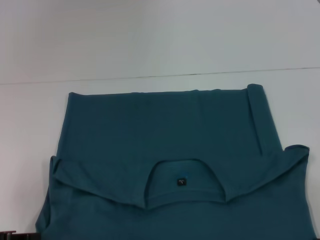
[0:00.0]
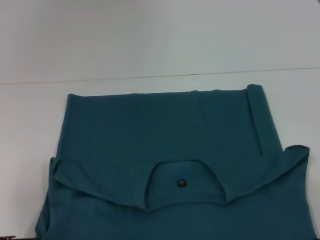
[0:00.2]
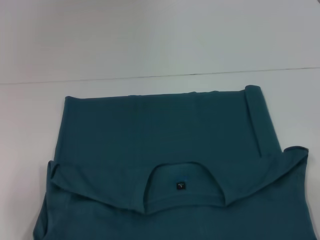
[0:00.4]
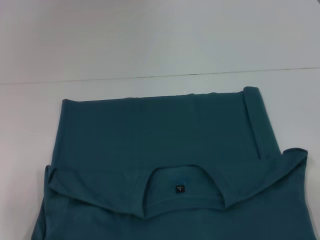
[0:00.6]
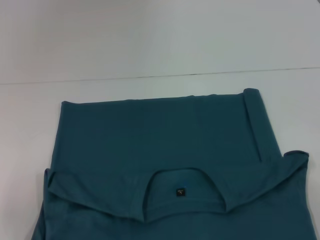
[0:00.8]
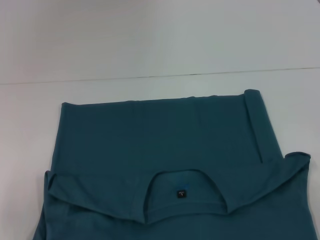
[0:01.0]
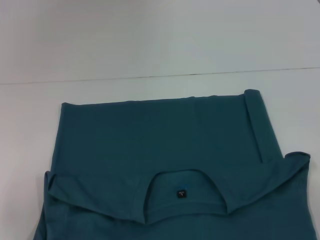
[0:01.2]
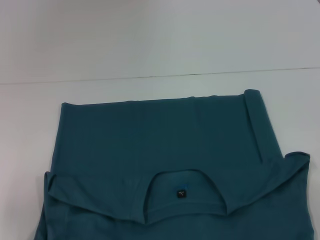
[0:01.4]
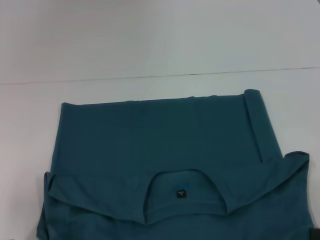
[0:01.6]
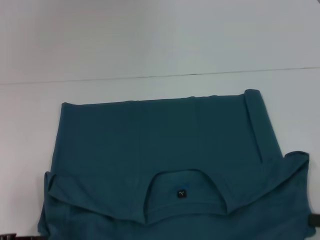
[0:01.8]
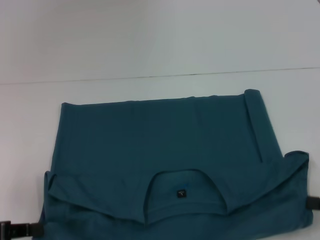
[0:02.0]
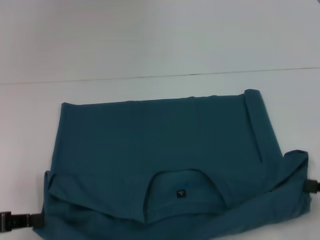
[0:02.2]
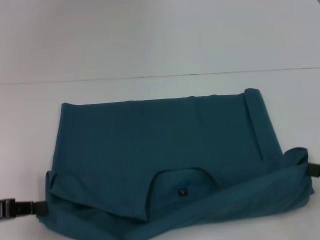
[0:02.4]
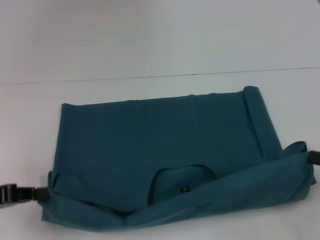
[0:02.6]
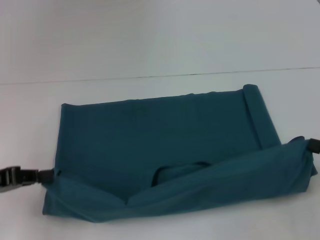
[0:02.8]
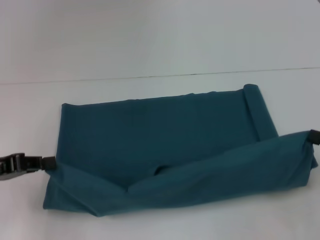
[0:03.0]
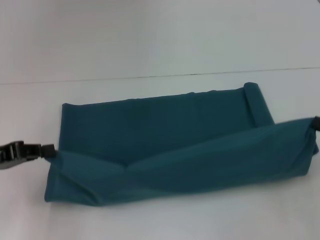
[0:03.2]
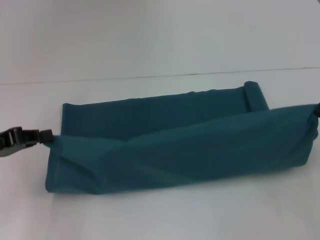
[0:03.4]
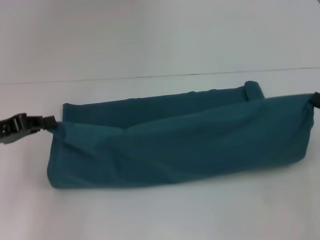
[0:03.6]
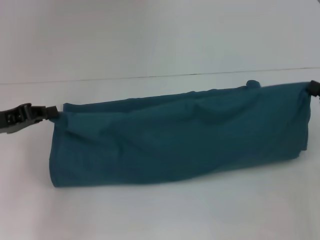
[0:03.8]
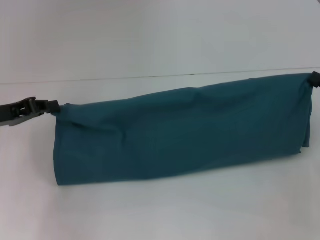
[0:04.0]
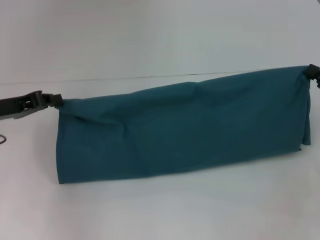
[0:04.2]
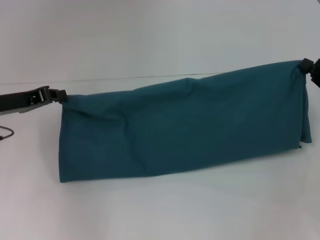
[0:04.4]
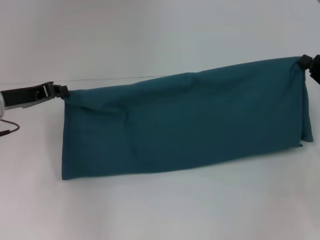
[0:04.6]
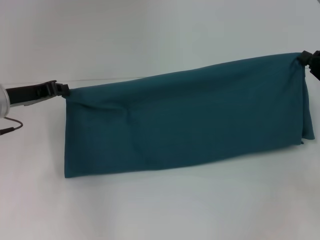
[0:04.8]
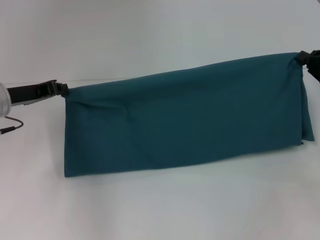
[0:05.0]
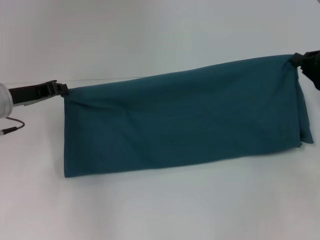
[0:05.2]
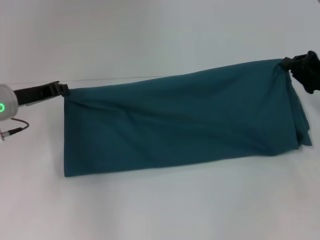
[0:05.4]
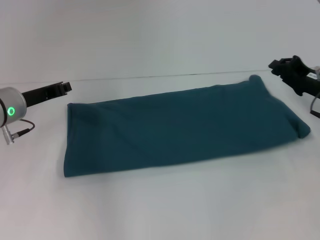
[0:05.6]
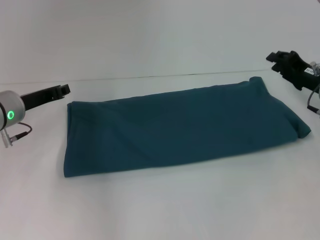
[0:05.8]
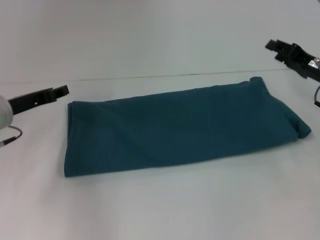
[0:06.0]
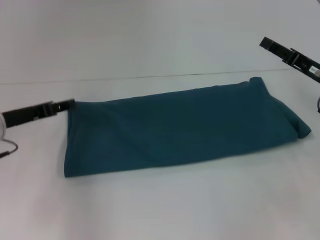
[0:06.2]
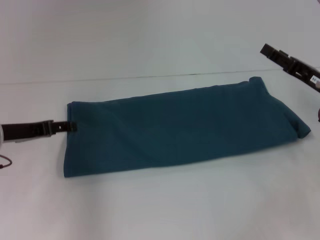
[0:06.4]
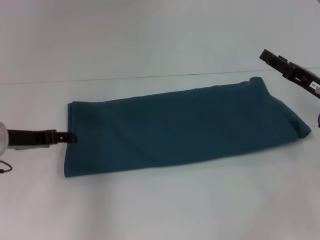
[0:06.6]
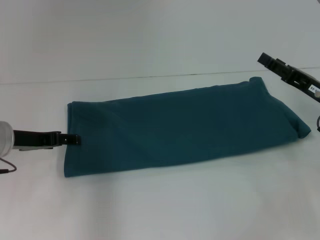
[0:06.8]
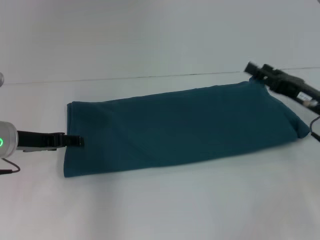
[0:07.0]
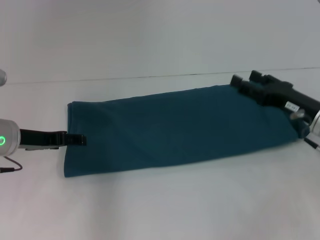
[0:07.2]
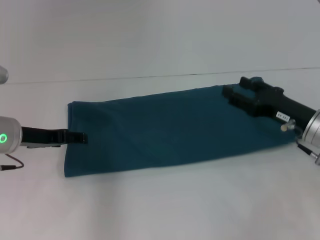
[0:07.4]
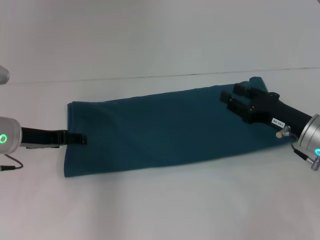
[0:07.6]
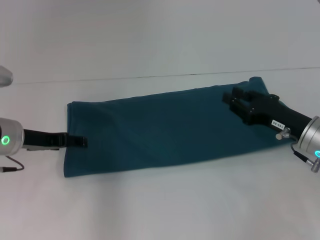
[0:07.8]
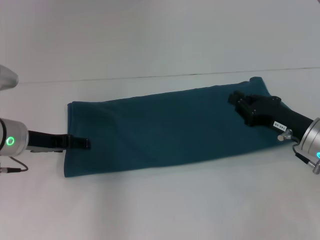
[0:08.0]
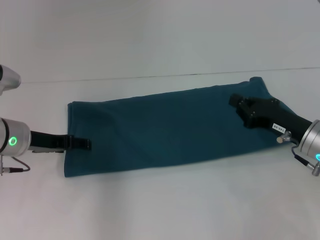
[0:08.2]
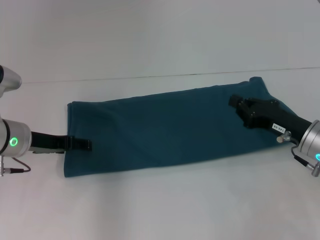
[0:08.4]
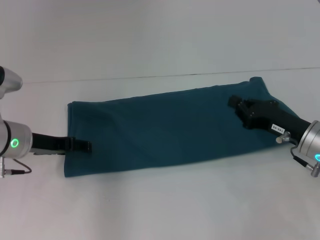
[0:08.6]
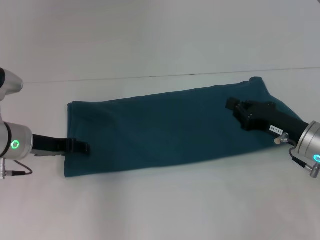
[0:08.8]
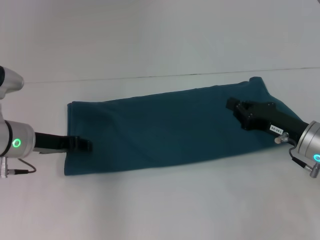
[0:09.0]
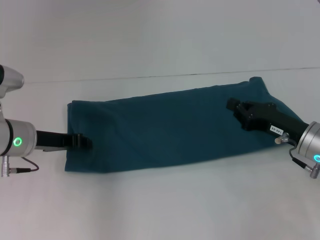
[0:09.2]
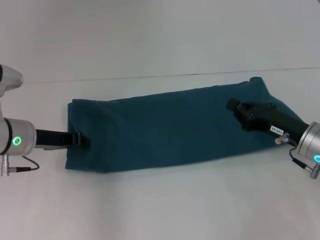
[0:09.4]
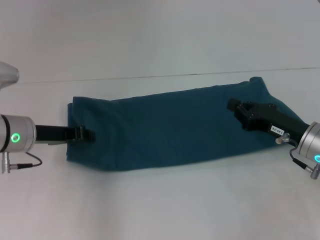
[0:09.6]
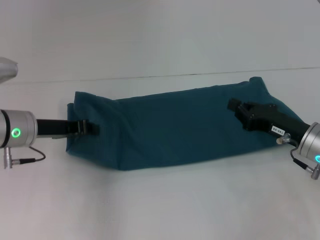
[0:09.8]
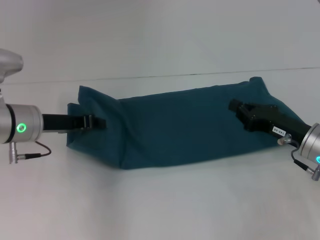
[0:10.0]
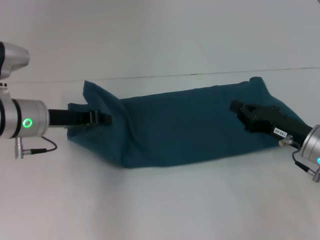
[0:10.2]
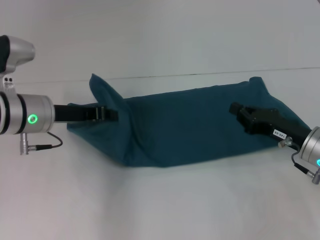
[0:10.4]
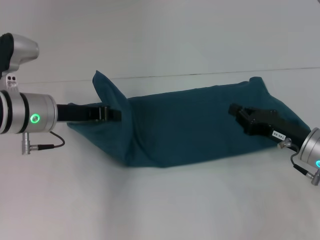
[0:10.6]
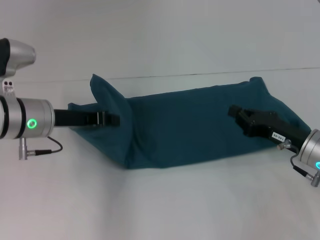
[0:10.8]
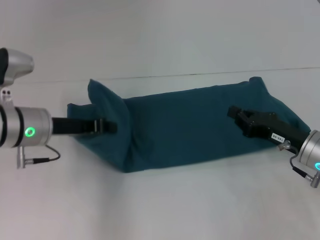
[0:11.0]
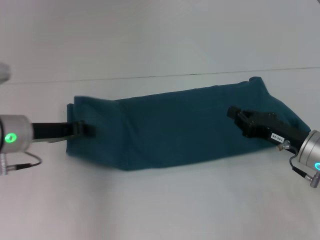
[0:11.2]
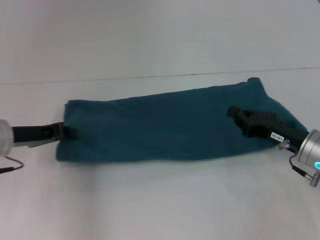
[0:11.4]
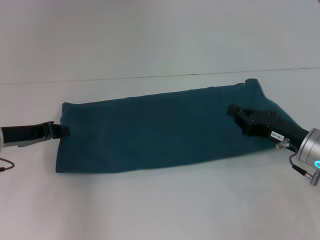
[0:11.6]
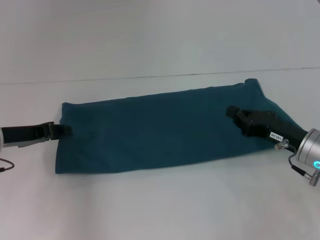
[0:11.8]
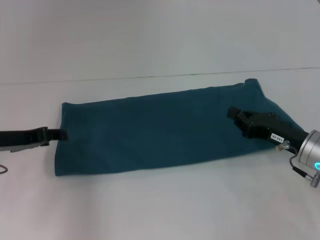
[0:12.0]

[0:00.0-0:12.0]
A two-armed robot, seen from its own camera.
Step, 0:01.6 to 0:06.0: Fold the clothes to the left.
Step, 0:01.6 to 0:06.0: Fold the clothes to the right.
0:00.0 to 0:01.6: There are only small adjustments of the grippers.
0:01.6 to 0:03.0: The grippers both shift forward by roughly 10 cm.
0:03.0 to 0:04.4: The grippers both shift forward by approximately 10 cm.
0:04.4 to 0:06.0: The right gripper is displaced forward and to the left by roughly 10 cm.
0:06.0 to 0:07.6: The left gripper opens up, while the right gripper heads backward and to the left, covering approximately 10 cm, and opens up.
0:07.6 to 0:09.0: The right gripper closes.
0:09.0 to 0:10.4: The left gripper closes its fingers.
0:10.4 to 0:12.0: The left gripper travels to the left by some 10 cm.

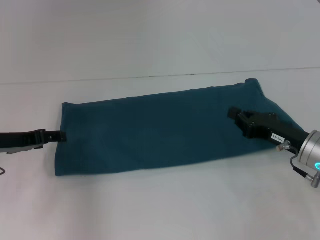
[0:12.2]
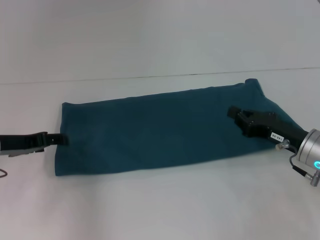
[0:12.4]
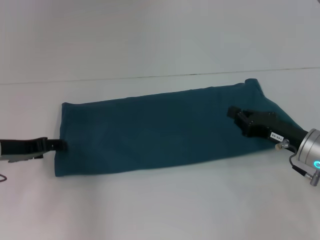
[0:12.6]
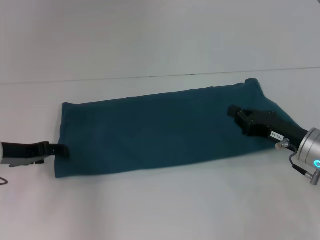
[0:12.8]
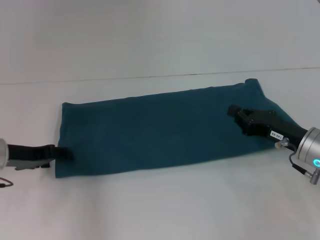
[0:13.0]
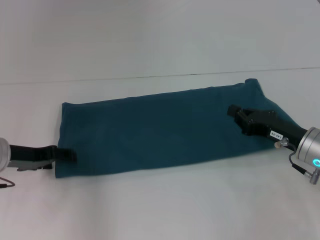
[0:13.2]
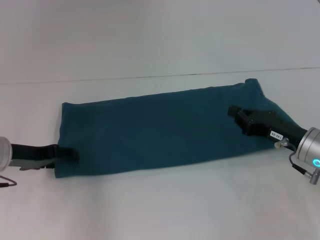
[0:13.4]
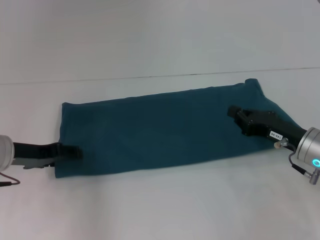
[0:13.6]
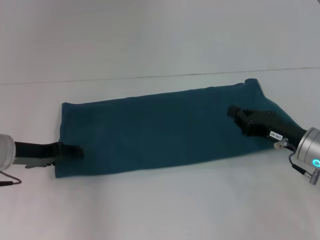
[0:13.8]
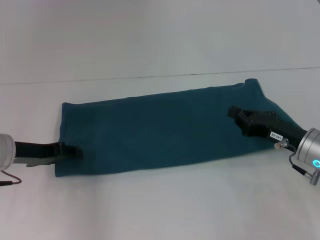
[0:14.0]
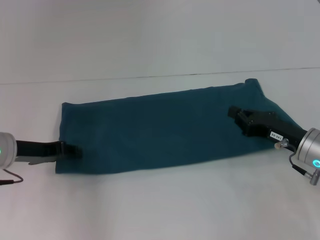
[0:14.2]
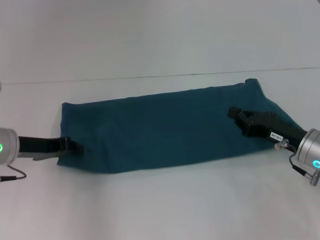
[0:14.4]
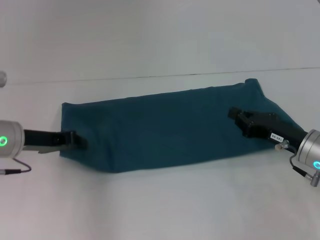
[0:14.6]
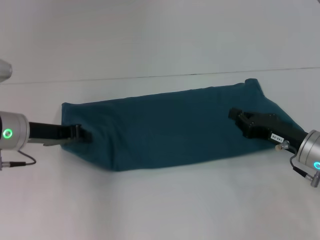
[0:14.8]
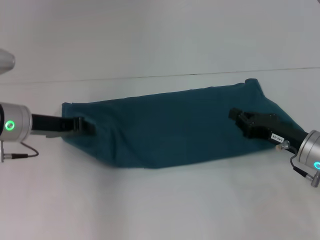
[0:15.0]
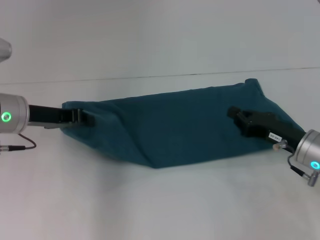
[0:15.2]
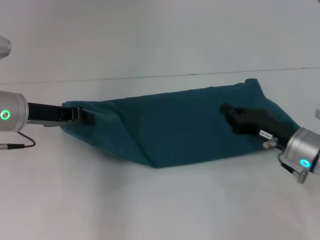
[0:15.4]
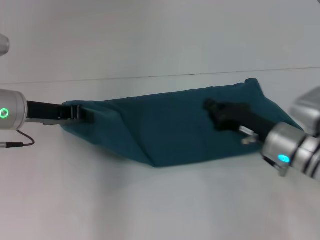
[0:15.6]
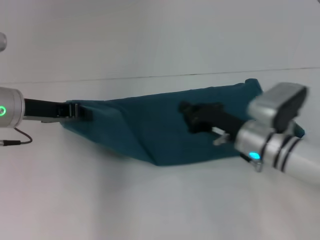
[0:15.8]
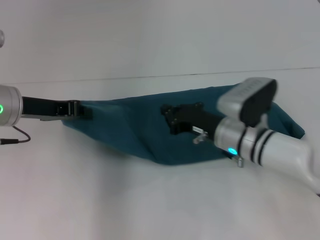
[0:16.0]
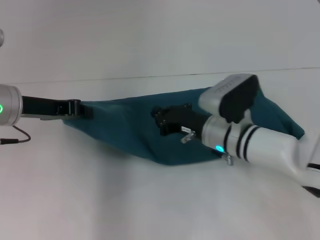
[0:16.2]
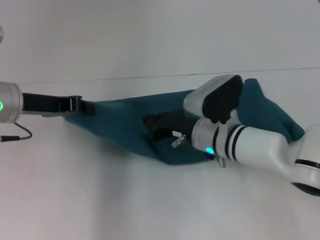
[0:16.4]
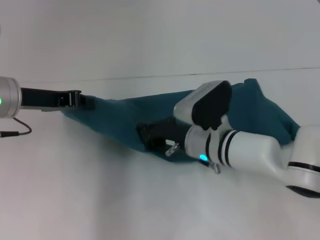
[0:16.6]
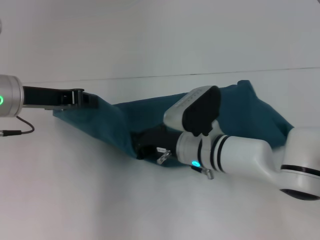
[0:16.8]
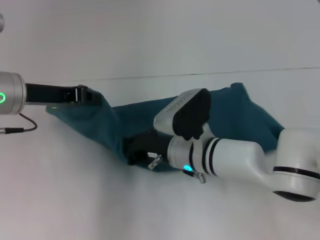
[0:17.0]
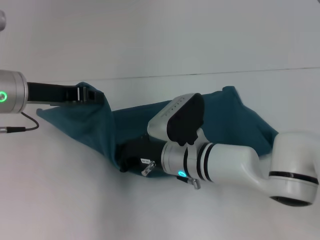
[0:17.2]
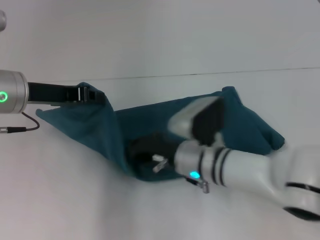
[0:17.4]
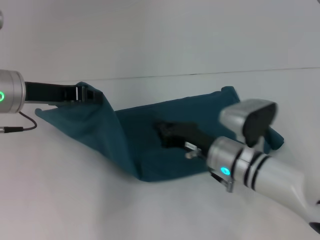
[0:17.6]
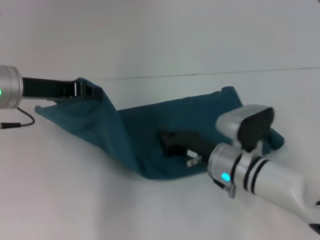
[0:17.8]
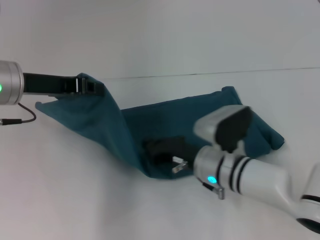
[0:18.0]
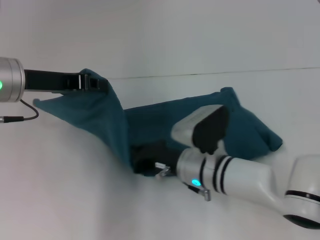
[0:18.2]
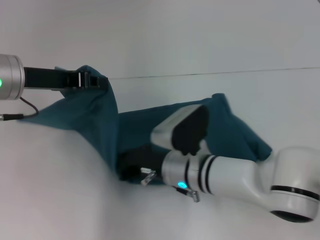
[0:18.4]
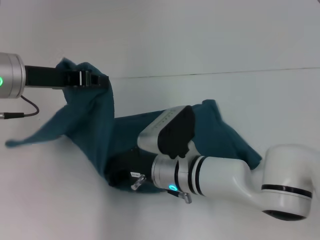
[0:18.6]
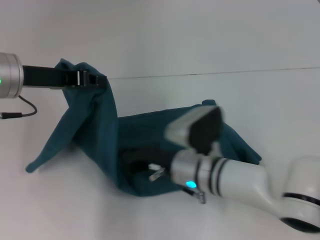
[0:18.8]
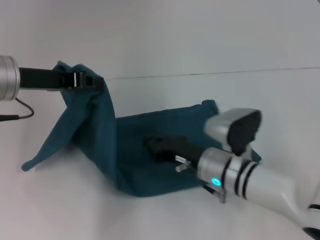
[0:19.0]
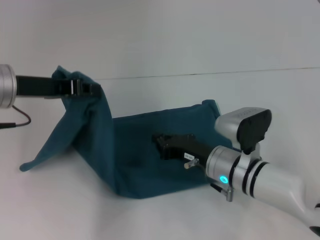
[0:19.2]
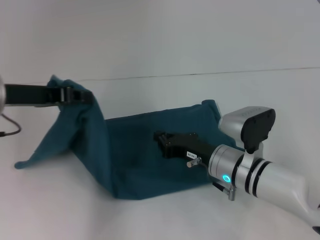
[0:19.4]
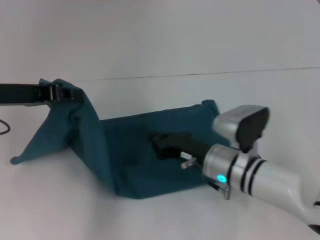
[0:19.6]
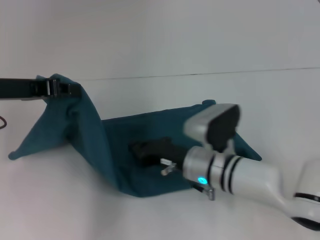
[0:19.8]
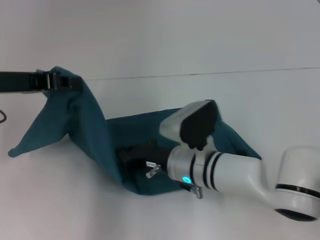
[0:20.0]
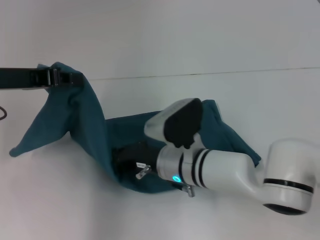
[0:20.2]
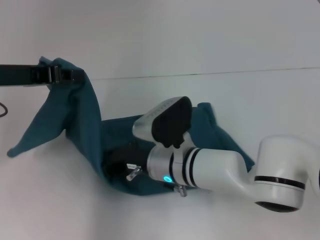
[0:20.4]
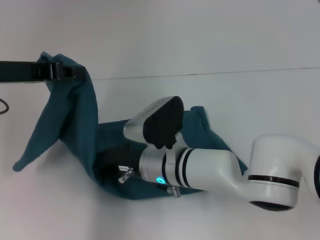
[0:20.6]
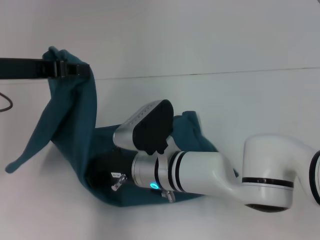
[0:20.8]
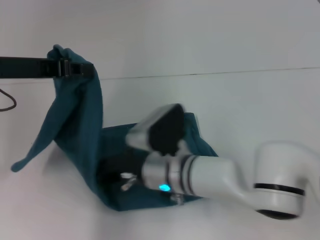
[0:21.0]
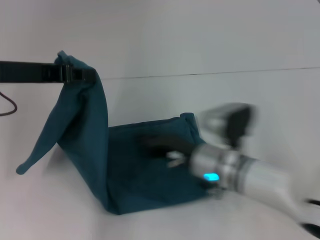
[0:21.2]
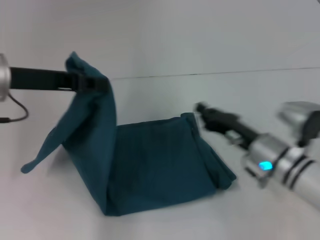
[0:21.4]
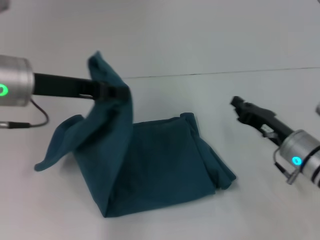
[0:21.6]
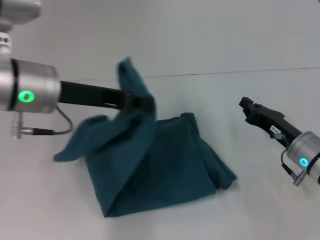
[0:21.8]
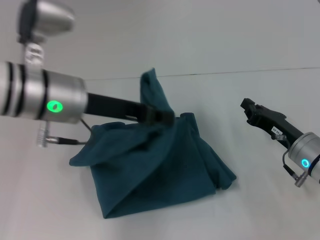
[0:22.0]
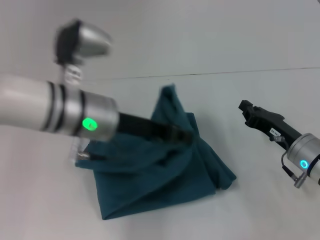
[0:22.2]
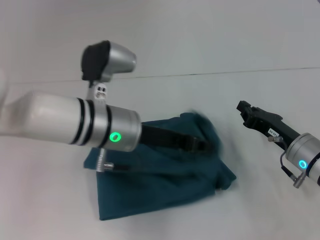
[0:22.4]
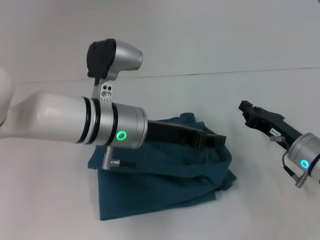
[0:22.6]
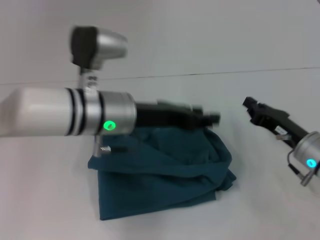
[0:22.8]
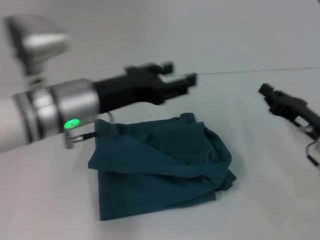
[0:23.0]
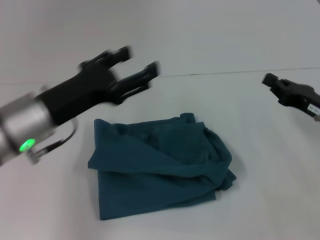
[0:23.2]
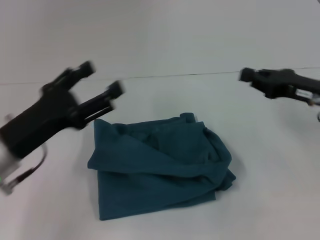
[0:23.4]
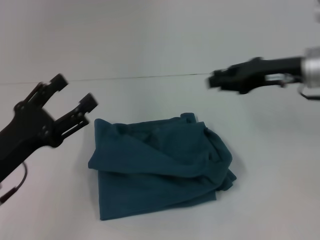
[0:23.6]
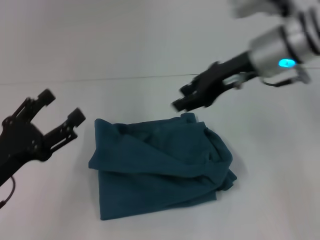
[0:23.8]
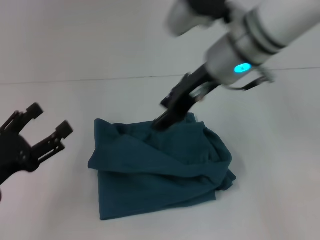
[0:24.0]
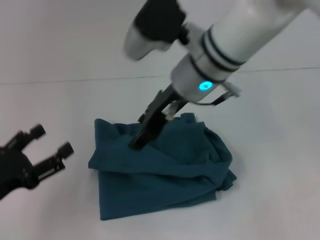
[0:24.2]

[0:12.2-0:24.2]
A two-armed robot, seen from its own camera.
Step, 0:12.2 to 0:21.0: Press the middle of the clothes with your right hand.
Step, 0:21.2 to 0:22.6: Fold the clothes to the left.
0:12.2 to 0:13.8: The grippers make only small movements.
0:13.8 to 0:15.2: The left gripper moves upward, roughly 5 cm, and closes.
0:15.2 to 0:16.6: The right gripper is displaced to the left by some 15 cm.
0:16.6 to 0:18.2: The right gripper moves left and right over some 5 cm, changing direction 2 times.
0:18.2 to 0:19.8: The right gripper goes left and right, about 10 cm each way, reversing 2 times.
0:19.8 to 0:21.2: The right gripper moves roughly 10 cm to the left and comes back.
0:21.2 to 0:22.6: The right gripper travels to the right by about 15 cm. The left gripper moves to the right and downward, some 20 cm.
0:22.6 to 0:24.2: The right gripper shifts roughly 25 cm to the left and upward, and opens its fingers. The left gripper is displaced to the left and backward by about 25 cm, and opens up.
